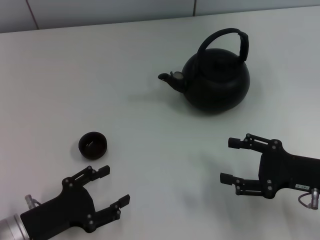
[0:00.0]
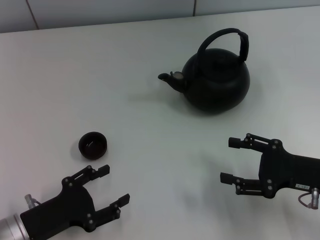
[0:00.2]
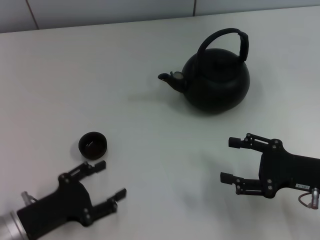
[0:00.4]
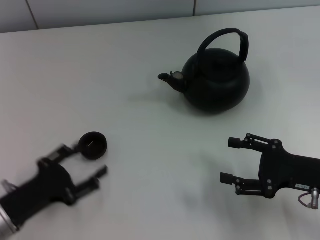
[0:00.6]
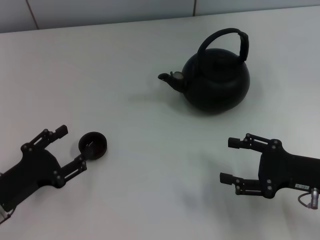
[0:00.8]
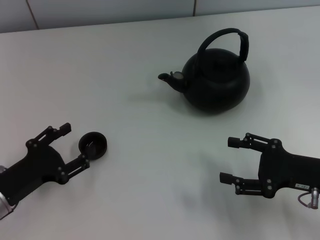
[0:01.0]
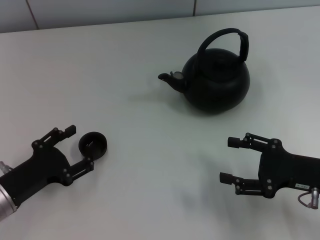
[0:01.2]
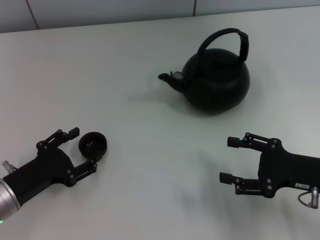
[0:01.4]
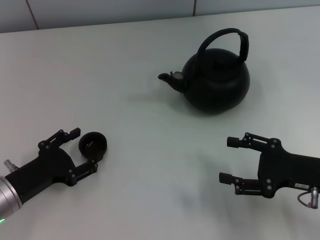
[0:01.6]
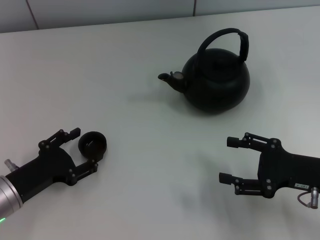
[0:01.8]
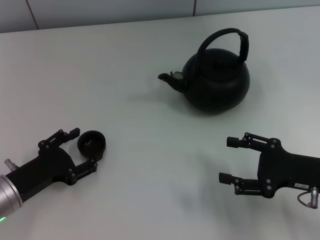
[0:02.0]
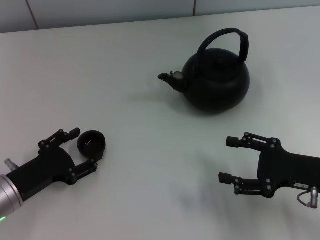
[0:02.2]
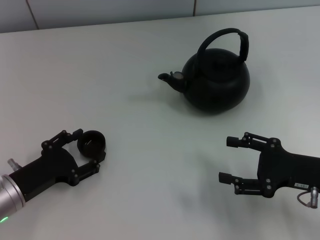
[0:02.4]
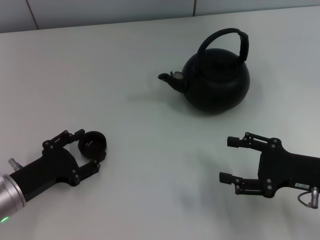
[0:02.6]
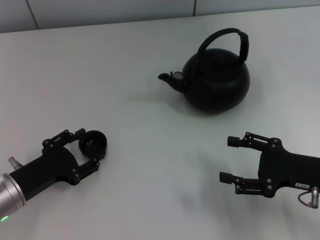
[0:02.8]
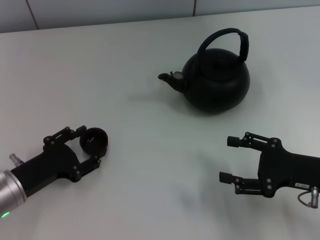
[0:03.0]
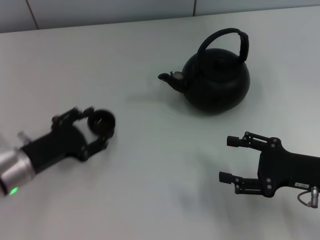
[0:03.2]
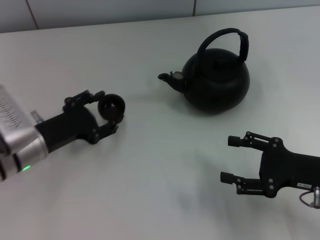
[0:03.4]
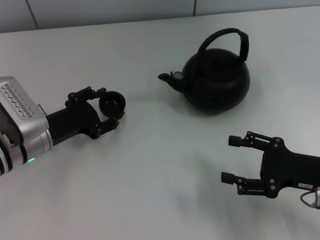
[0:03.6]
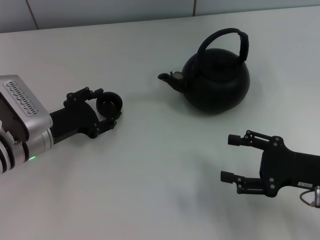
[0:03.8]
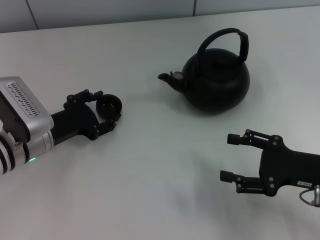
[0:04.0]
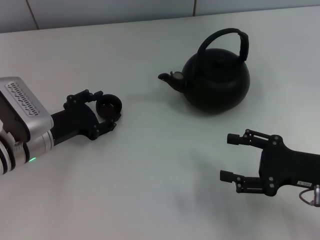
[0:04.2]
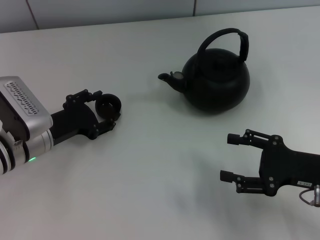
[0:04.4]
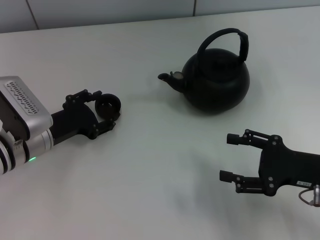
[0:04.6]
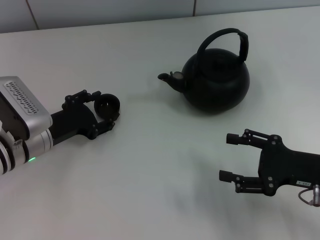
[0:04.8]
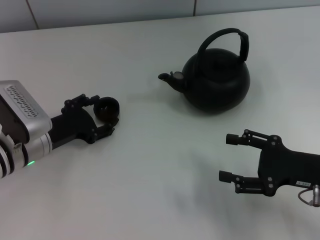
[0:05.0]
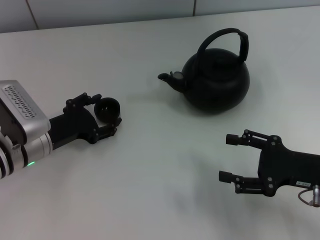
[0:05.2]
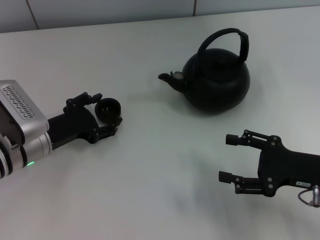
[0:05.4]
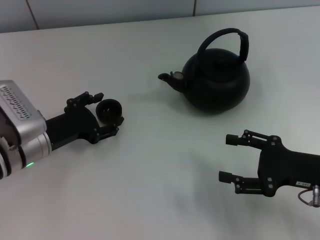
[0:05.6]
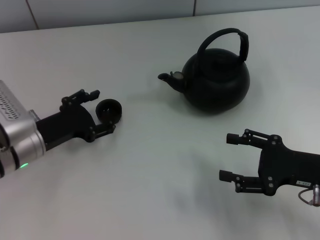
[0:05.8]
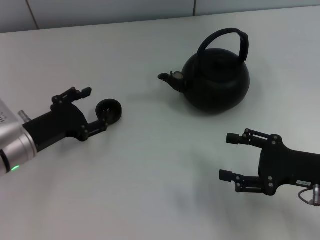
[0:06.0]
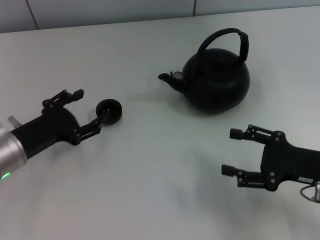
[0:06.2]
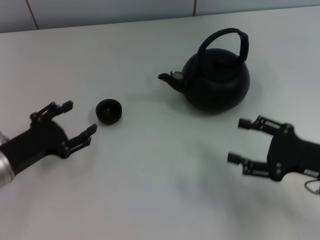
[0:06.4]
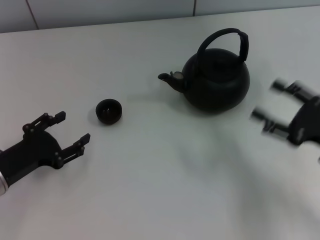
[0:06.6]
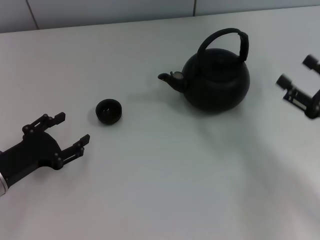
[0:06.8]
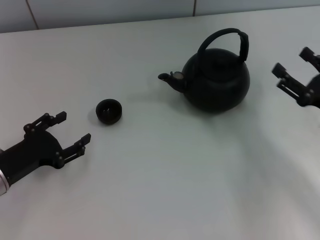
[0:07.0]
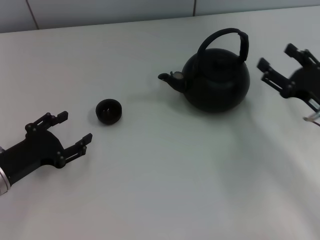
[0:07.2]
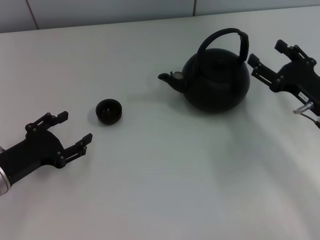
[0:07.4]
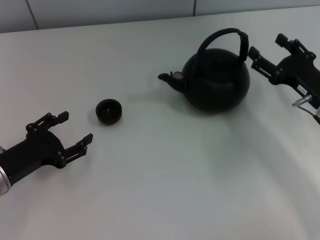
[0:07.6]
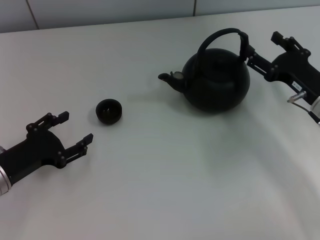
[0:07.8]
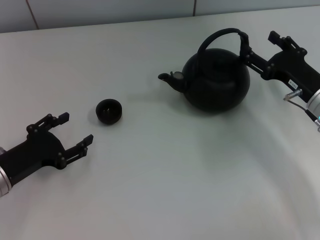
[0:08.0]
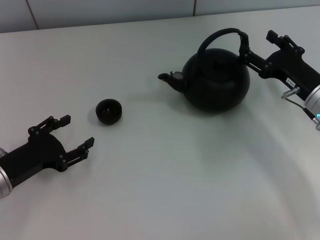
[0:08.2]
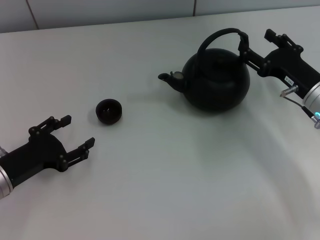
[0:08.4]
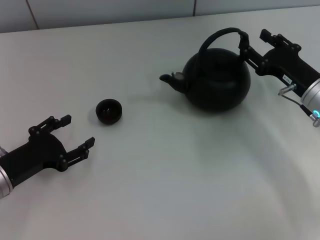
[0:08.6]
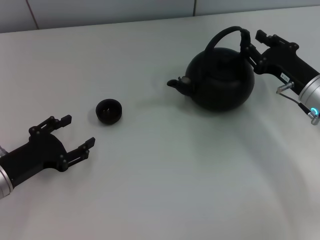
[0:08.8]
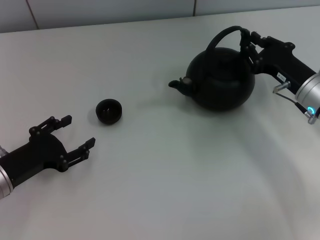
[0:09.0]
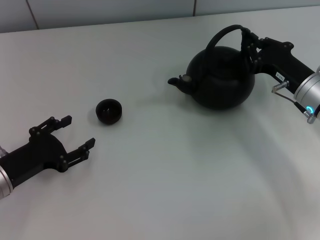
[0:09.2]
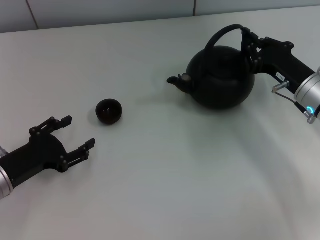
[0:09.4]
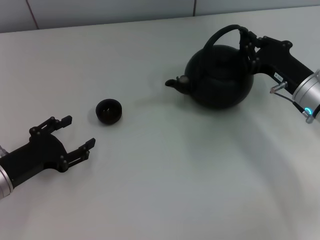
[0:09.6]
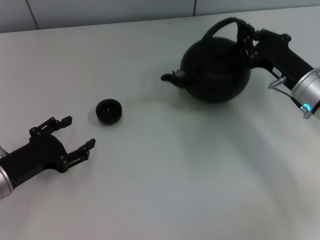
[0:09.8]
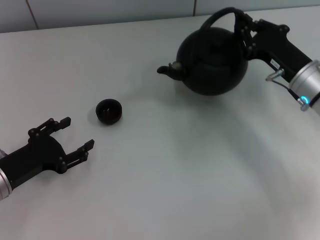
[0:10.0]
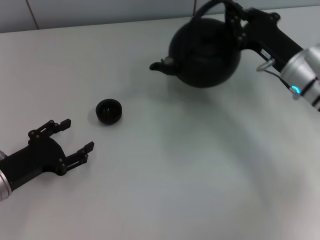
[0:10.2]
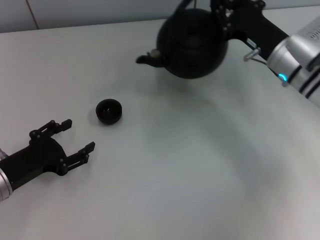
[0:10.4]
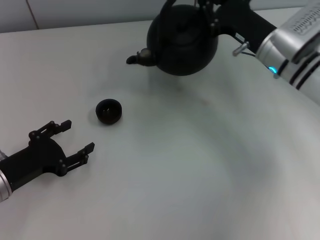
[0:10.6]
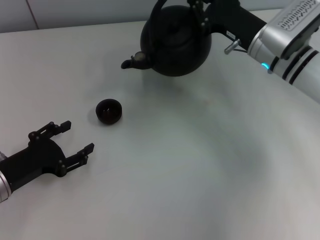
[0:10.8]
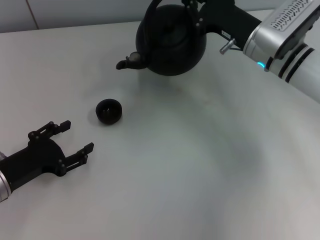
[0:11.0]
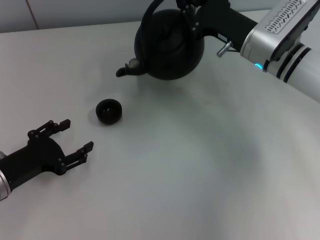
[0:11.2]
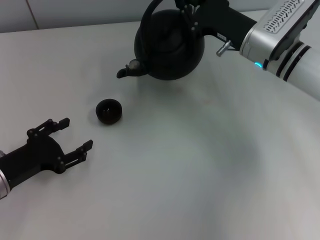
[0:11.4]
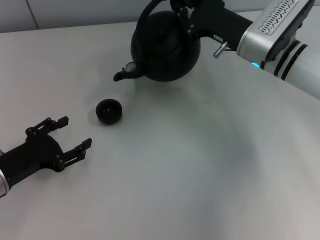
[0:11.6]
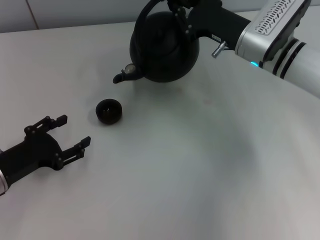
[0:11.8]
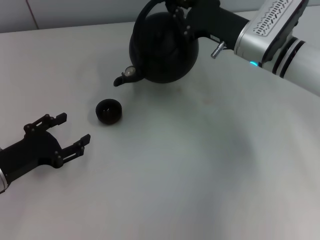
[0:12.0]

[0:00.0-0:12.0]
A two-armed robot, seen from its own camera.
Task of the whole recording: Grasp the handle of the teapot with one hand and pour tea into the teacup.
Step, 0:00.0 to 0:03.4: Pick up the teacup with the left gripper.
Step, 0:03.6 to 0:05.8: Place the teacup in the center of view with the left gripper.
Step, 0:06.0 to 0:10.2: Pick up the teapot with the right gripper.
0:00.0 to 0:01.6: The left gripper moves about 5 cm.
0:01.6 to 0:03.0: Neither gripper changes place.
0:03.0 to 0:04.4: The left gripper travels forward by some 10 cm.
0:04.4 to 0:06.0: The grippers move only a little.
0:06.0 to 0:07.6: The left gripper ends up about 5 cm from where it was; the right gripper heads forward, covering roughly 10 cm.
0:07.6 to 0:09.0: The right gripper closes up.
0:09.0 to 0:10.4: The right gripper moves about 10 cm, and closes.
0:10.4 to 0:12.0: The grippers make only small movements.

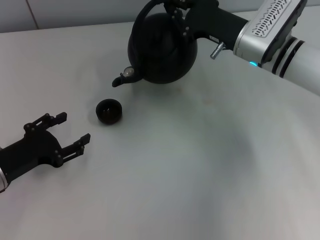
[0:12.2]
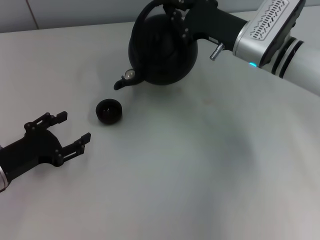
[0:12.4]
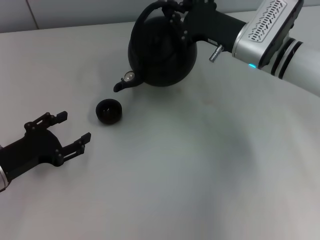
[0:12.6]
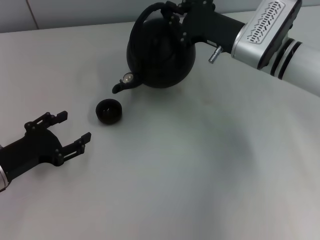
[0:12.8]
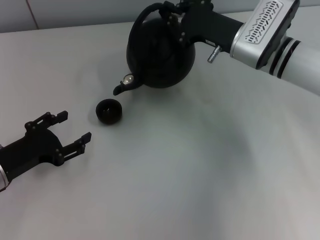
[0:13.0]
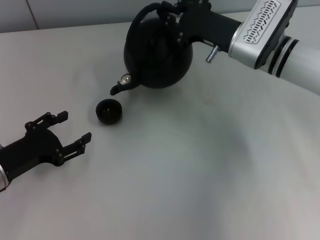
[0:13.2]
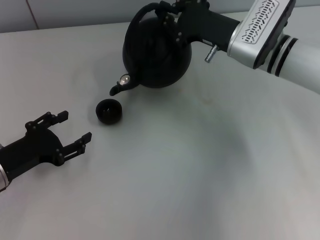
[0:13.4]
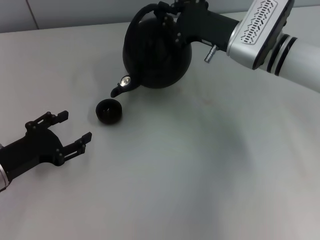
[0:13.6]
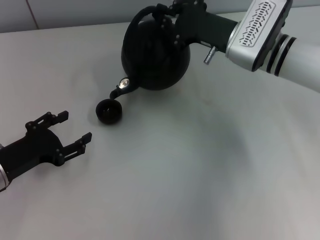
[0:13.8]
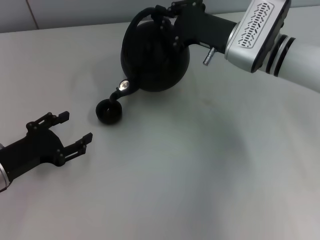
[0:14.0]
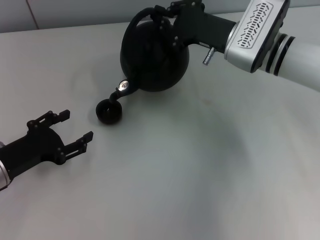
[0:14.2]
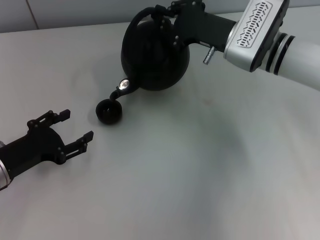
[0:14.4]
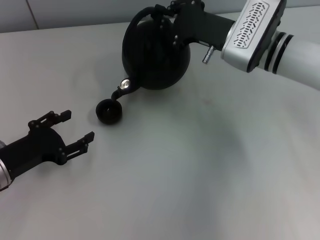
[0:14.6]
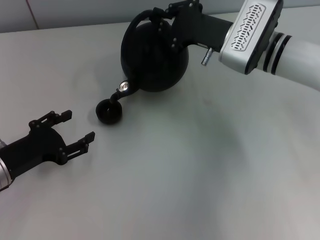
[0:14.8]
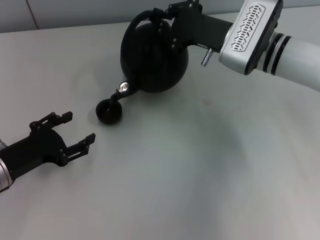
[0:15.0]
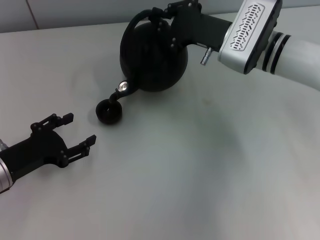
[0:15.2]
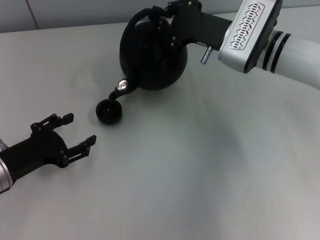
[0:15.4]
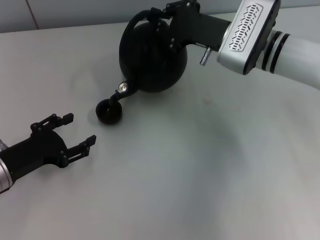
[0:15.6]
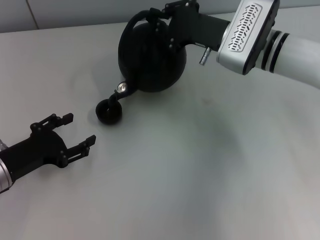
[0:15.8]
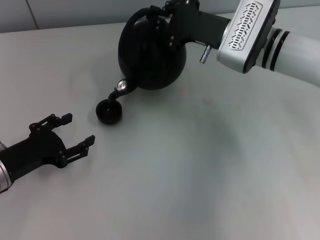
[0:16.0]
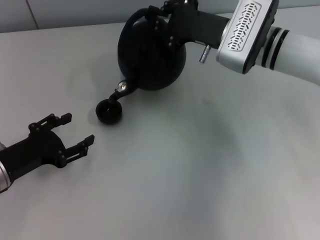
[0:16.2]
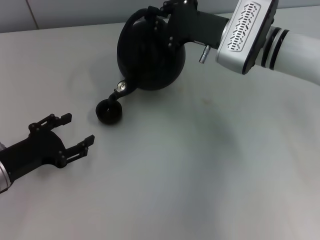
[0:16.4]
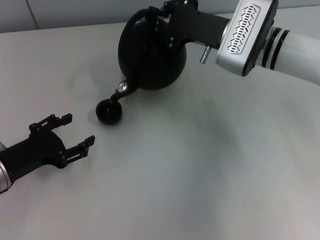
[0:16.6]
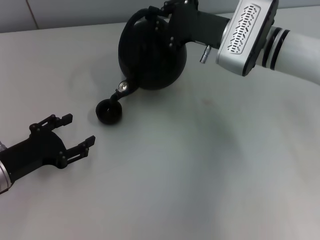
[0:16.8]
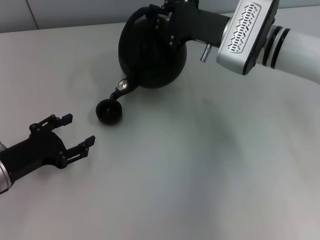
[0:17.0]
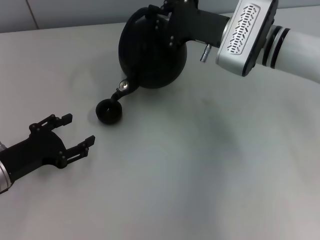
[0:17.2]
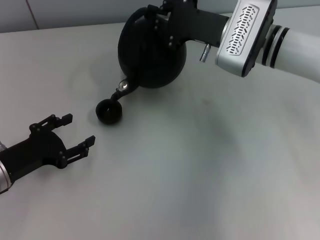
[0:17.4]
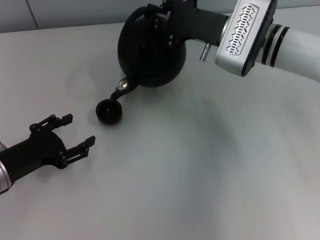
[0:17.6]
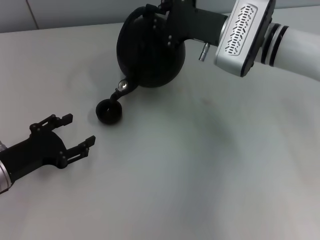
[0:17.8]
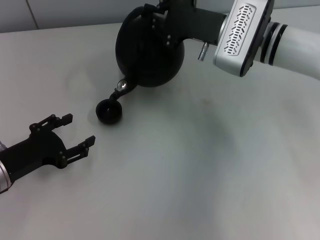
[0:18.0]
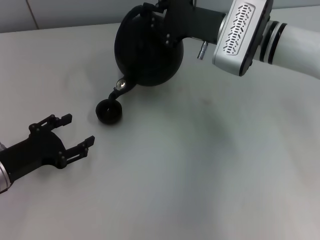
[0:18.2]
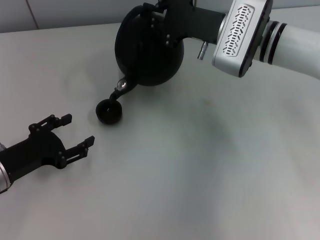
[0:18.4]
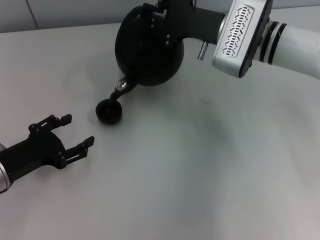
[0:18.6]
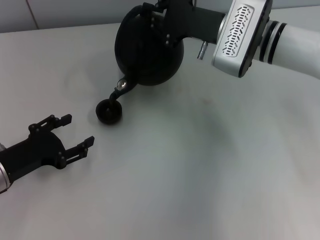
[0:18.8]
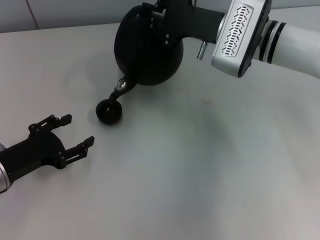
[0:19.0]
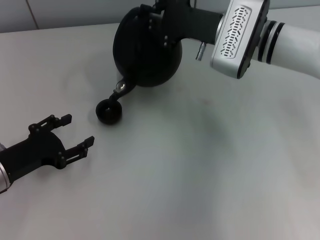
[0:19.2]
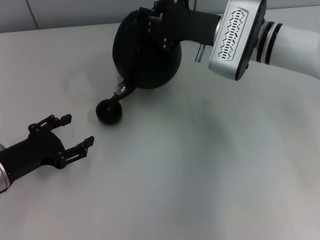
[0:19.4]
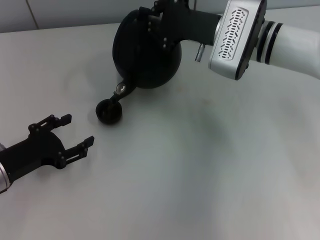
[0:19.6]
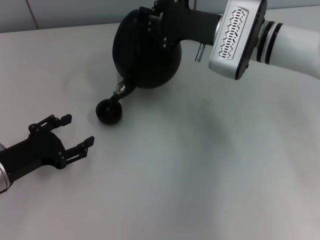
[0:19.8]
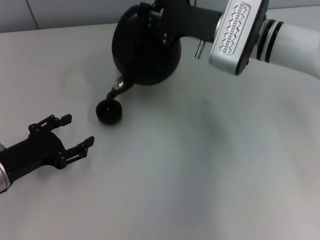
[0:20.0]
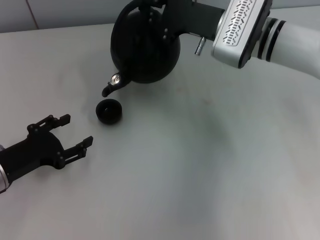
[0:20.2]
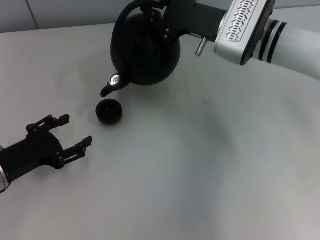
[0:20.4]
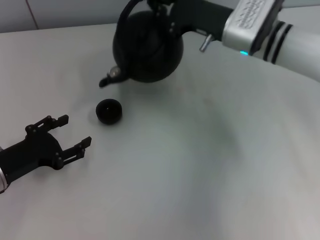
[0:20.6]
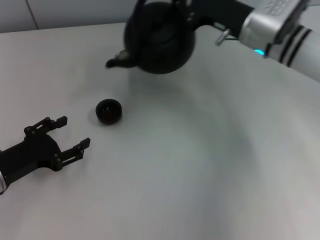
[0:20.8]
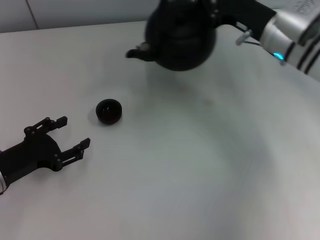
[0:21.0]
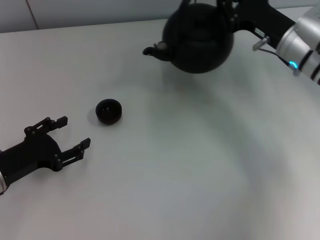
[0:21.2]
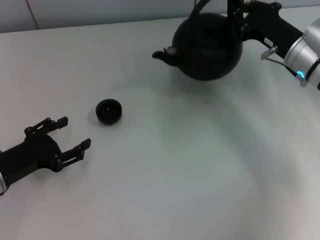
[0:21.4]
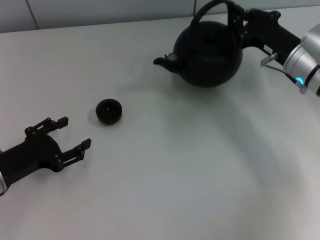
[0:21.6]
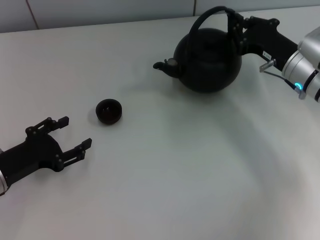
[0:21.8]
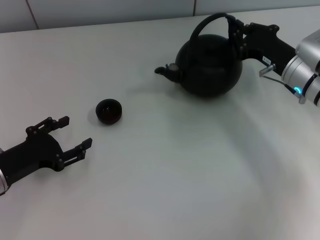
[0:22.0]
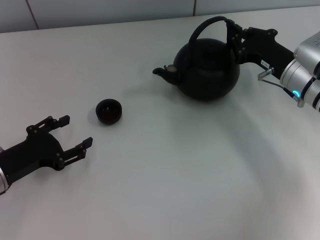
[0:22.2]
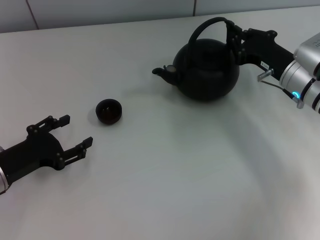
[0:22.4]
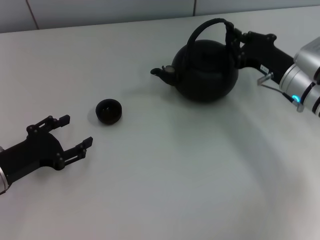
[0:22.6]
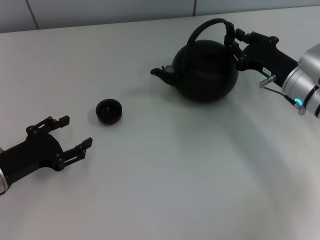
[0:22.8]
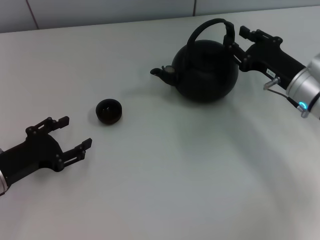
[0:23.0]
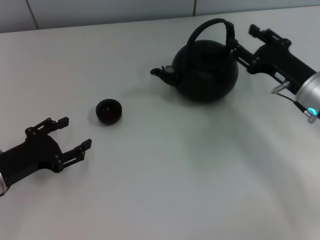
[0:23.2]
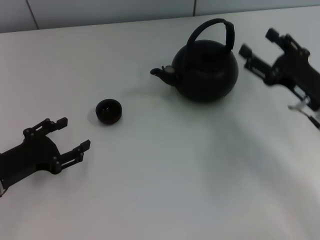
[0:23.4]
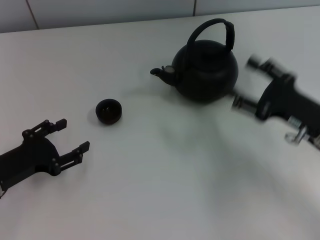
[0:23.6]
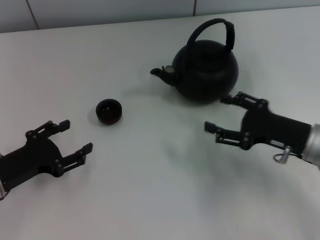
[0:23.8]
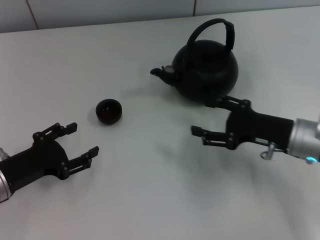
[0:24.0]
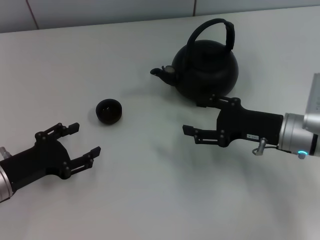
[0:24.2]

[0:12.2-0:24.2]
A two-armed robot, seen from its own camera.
Task of the whole recording: Grasp the handle of the teapot with one hand and pour tea into the teacup.
Step, 0:20.2 to 0:23.2: Put down the teapot with the right gripper.
0:12.2 to 0:13.8: The grippers move only a little.
0:13.8 to 0:15.2: Neither gripper changes place.
0:15.2 to 0:18.2: The grippers make only small movements.
0:18.2 to 0:19.8: Neither gripper changes place.
0:19.8 to 0:21.2: The right gripper goes about 10 cm to the right.
0:21.2 to 0:22.6: The right gripper ends up roughly 5 cm from where it was.
0:22.6 to 0:24.2: The right gripper is displaced backward by roughly 5 cm, and opens.
